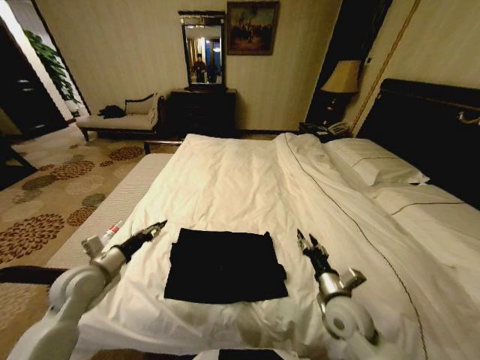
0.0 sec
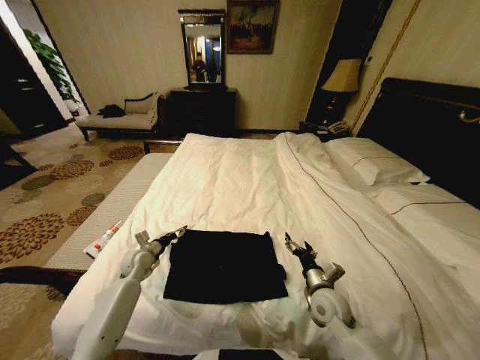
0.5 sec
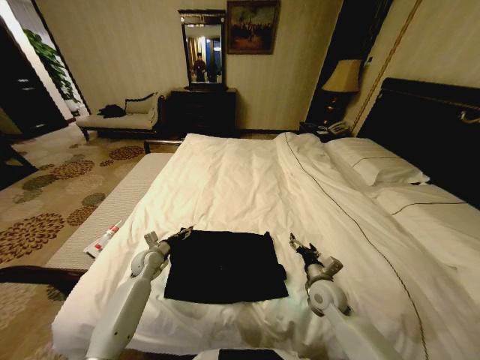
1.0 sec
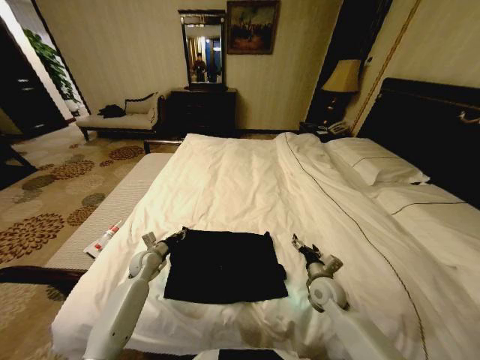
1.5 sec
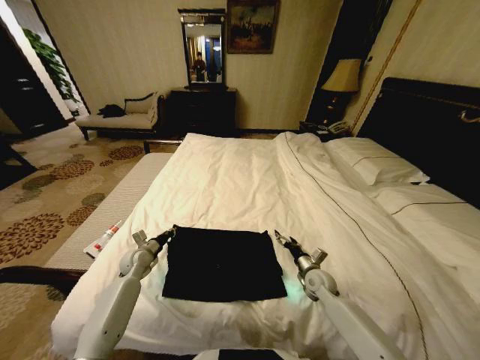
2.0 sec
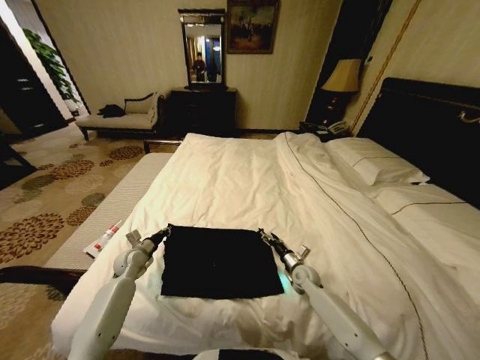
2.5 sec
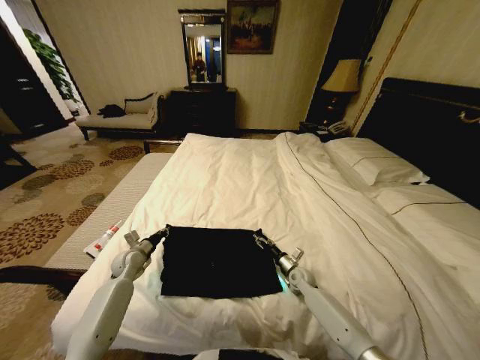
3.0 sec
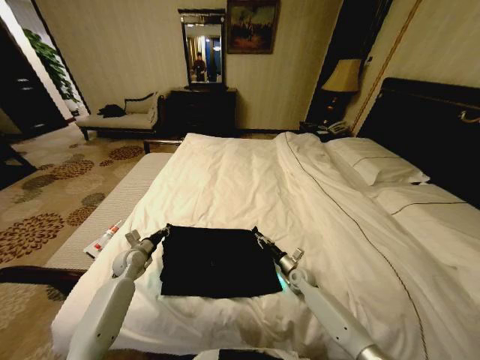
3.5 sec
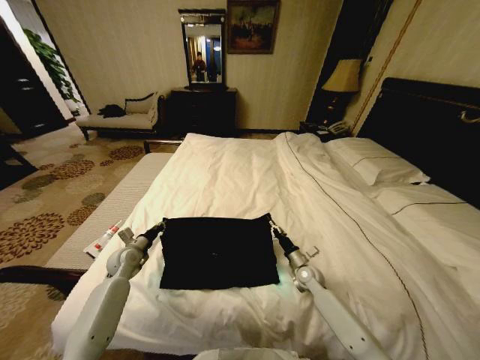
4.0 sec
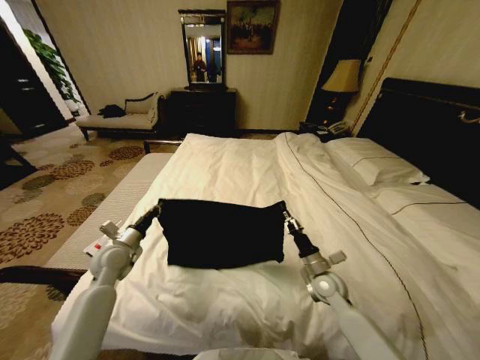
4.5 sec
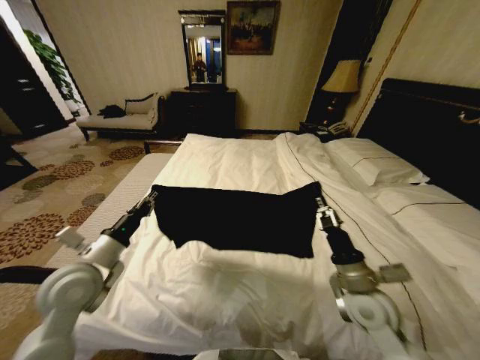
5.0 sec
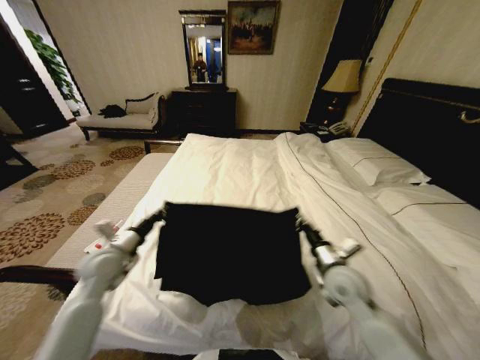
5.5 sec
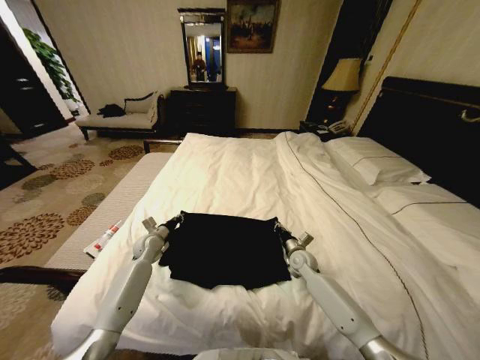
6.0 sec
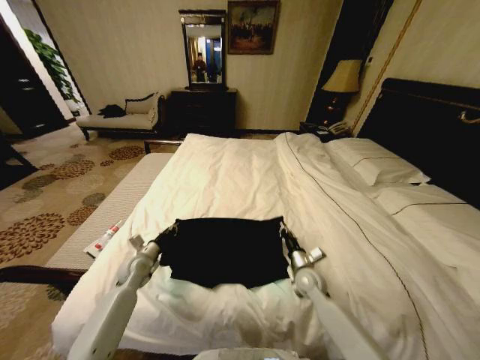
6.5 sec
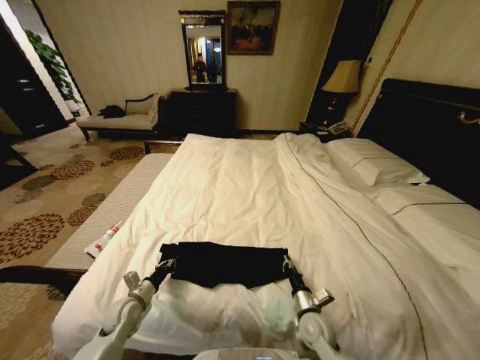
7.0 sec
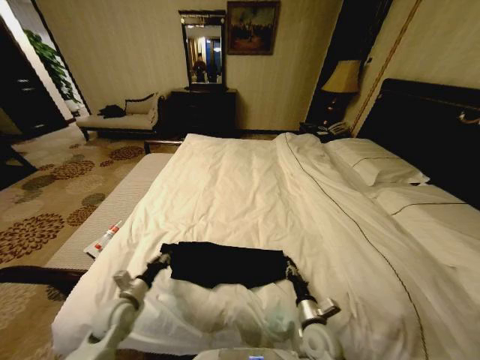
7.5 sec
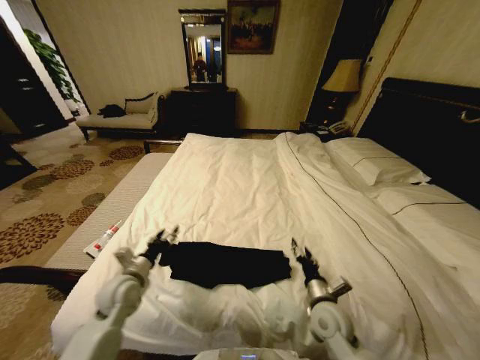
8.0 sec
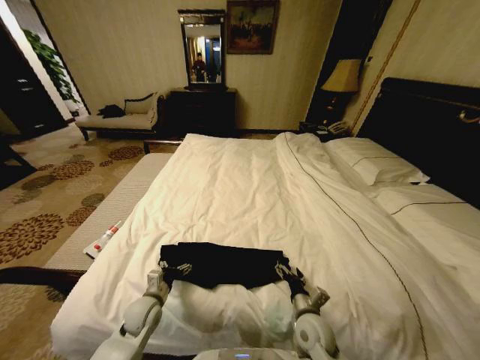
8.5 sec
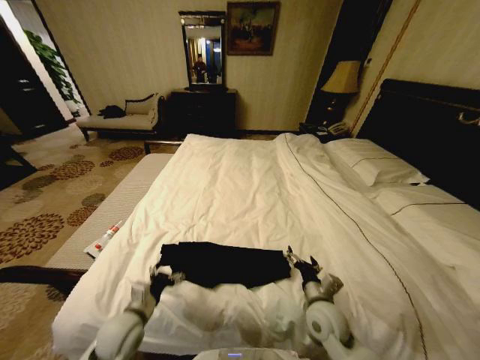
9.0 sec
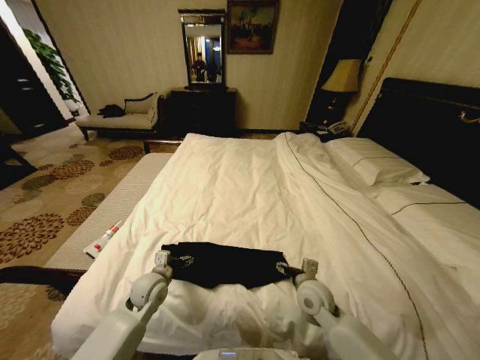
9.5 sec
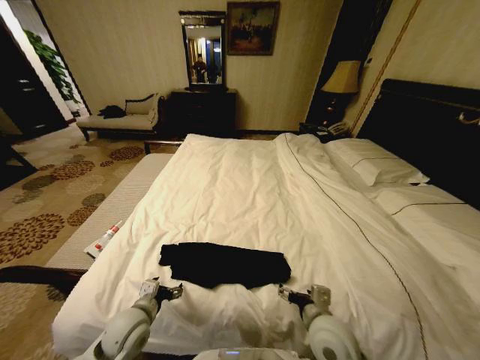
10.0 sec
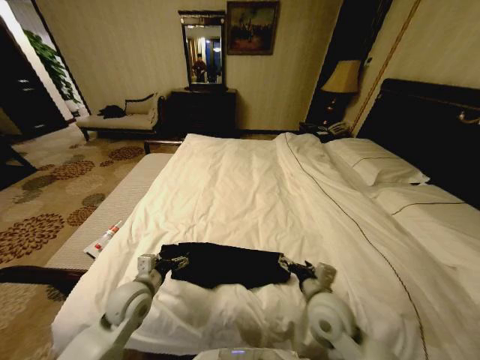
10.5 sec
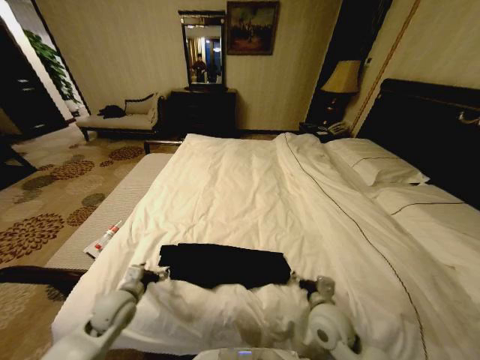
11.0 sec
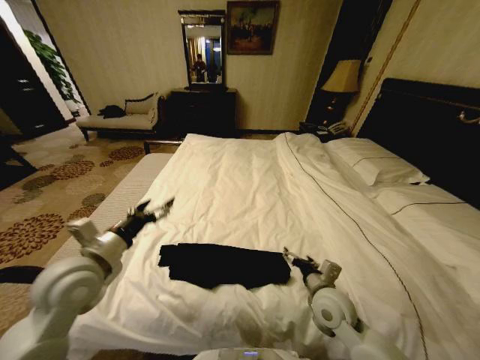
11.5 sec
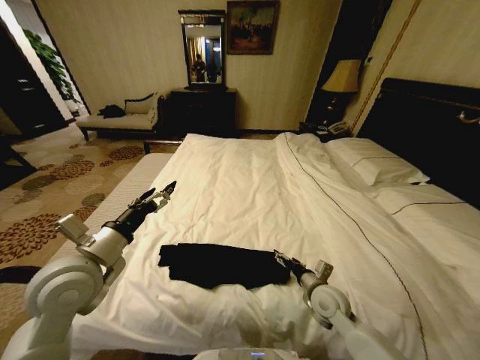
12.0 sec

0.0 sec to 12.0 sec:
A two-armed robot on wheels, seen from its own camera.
Task of the whole recording: Fold the clothes on the bed.
0.0 sec to 2.0 sec: The left gripper travels downward and forward by approximately 20 cm, and closes its fingers. The right gripper shifts roughly 15 cm forward and downward, and opens its fingers.
2.0 sec to 4.0 sec: The right gripper closes.
4.0 sec to 6.0 sec: The right gripper reaches about 20 cm upward, then returns. Meanwhile the left gripper shifts approximately 5 cm to the right, and travels backward and back again, some 15 cm each way.
6.0 sec to 8.0 sec: The two grippers go roughly 20 cm backward. The left gripper opens its fingers. Meanwhile the right gripper opens up.
8.0 sec to 10.0 sec: The right gripper travels upward and to the left by some 10 cm, and opens up. The left gripper moves forward and backward over about 10 cm, changing direction 2 times.
10.0 sec to 12.0 sec: The left gripper moves upward, some 20 cm, while the right gripper is displaced forward, to the right and downward by roughly 10 cm.

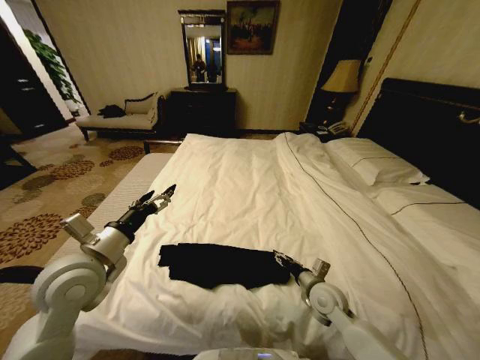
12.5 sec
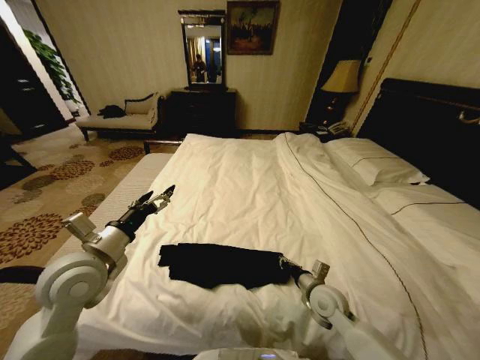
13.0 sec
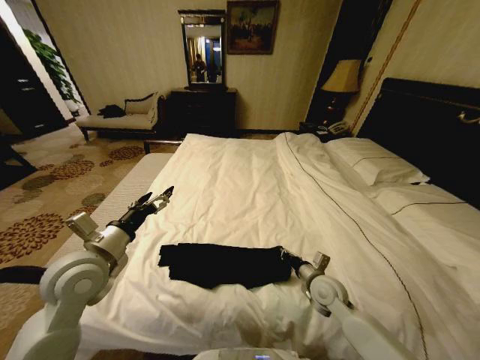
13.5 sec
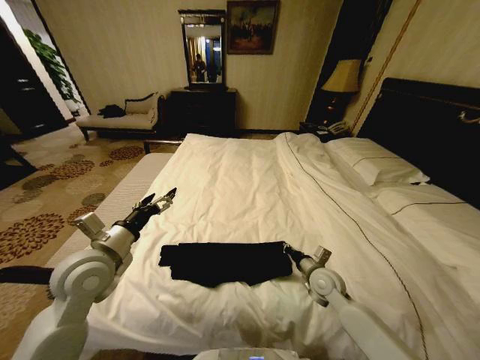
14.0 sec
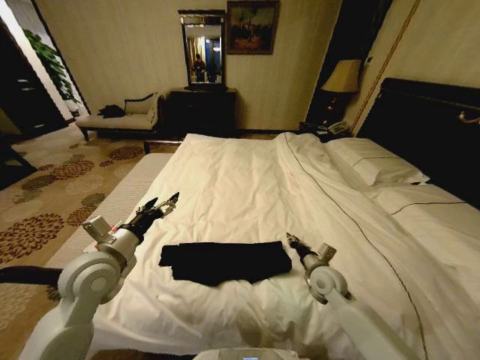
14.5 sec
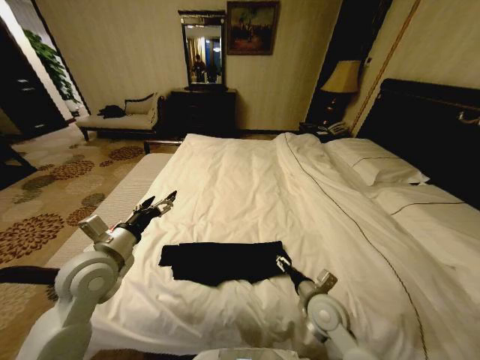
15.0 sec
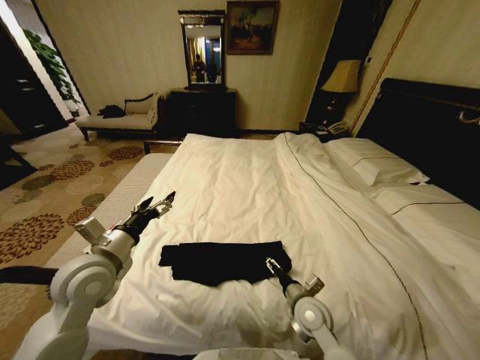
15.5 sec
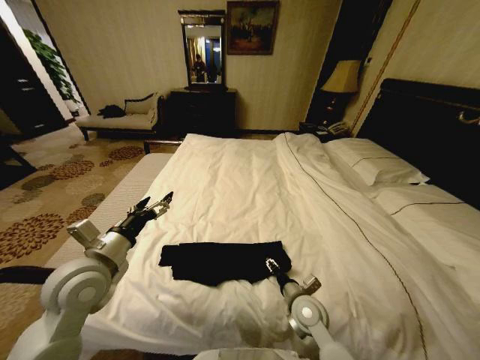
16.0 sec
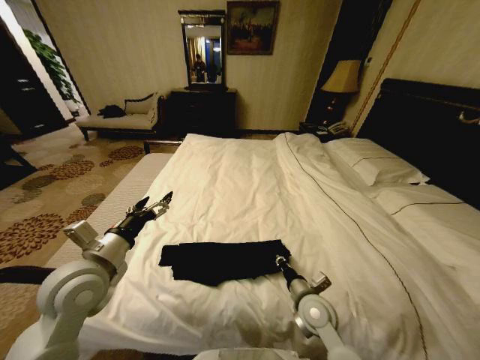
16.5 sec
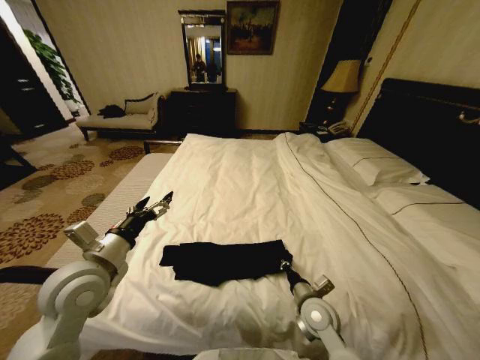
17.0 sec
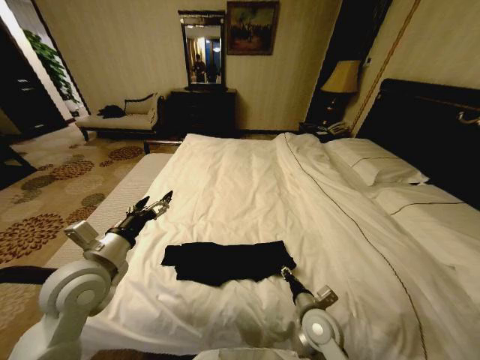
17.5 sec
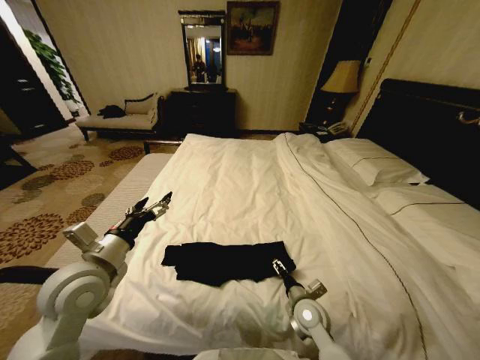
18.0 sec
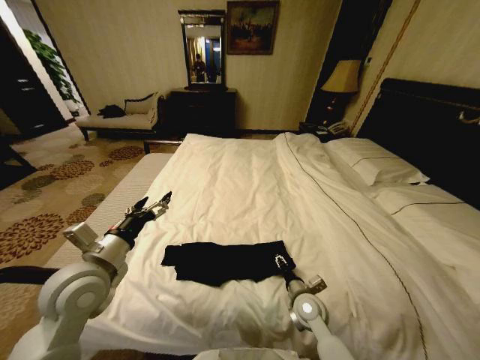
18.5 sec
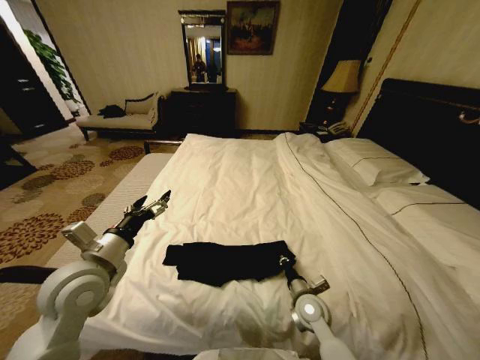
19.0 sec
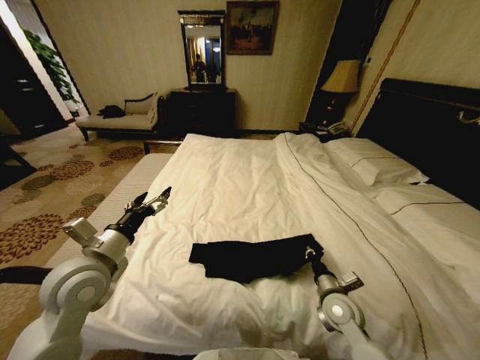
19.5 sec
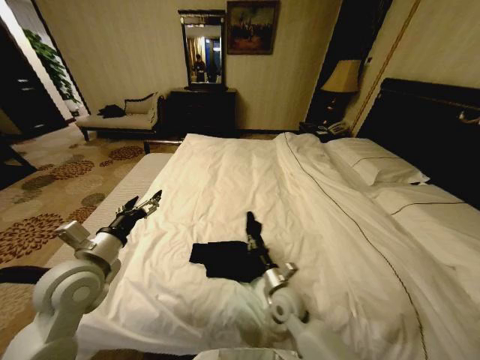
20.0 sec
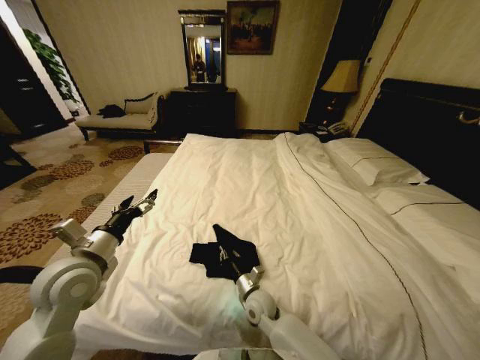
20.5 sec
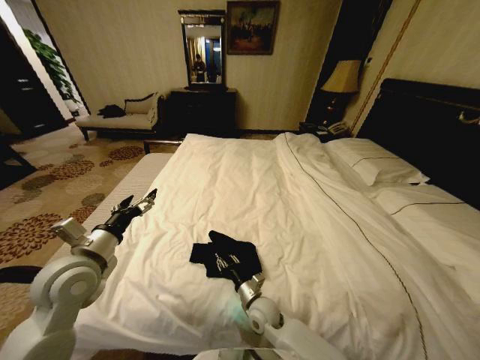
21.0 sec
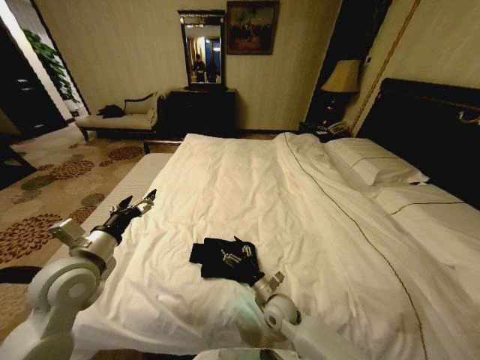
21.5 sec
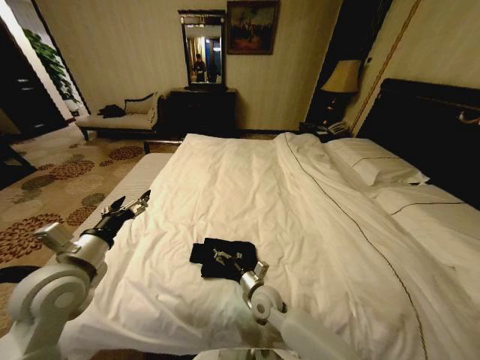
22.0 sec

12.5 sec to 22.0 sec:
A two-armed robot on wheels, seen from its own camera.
Task of the whole recording: Fold the clothes on the bed.
12.5 sec to 14.5 sec: The right gripper closes.
14.5 sec to 16.5 sec: The right gripper is displaced backward and to the left by about 10 cm, and opens, then closes again.
16.5 sec to 18.0 sec: The right gripper opens its fingers.
18.0 sec to 20.0 sec: The right gripper is displaced to the left by about 5 cm, and closes up.
20.0 sec to 22.0 sec: The right gripper moves left and right over some 5 cm, changing direction 2 times, and opens.

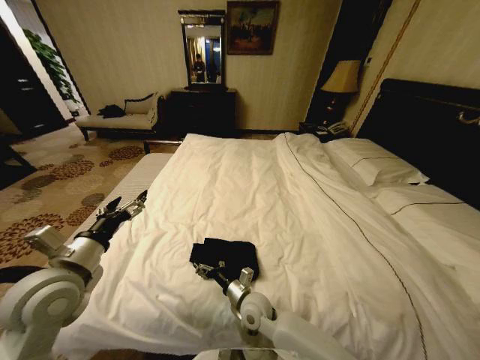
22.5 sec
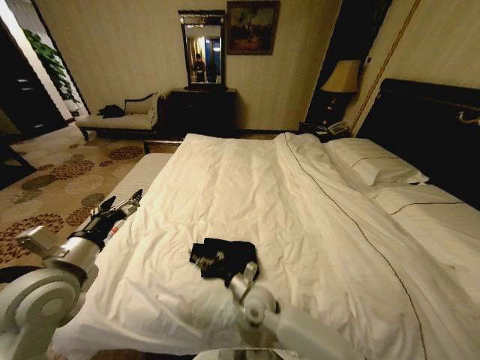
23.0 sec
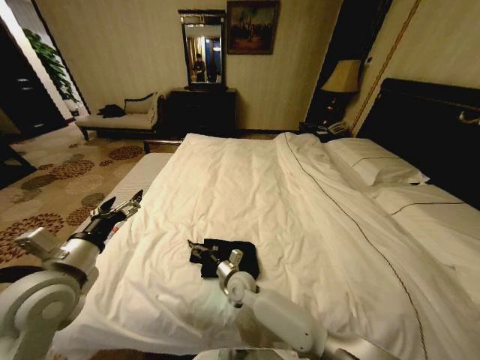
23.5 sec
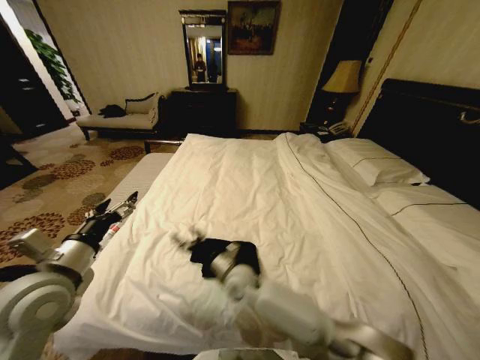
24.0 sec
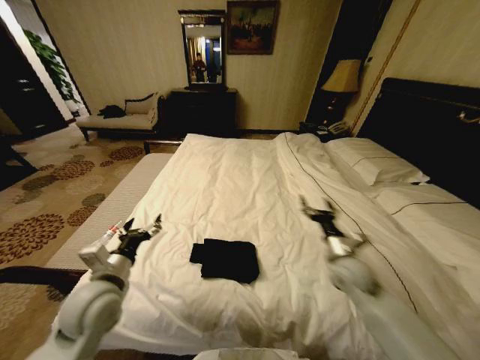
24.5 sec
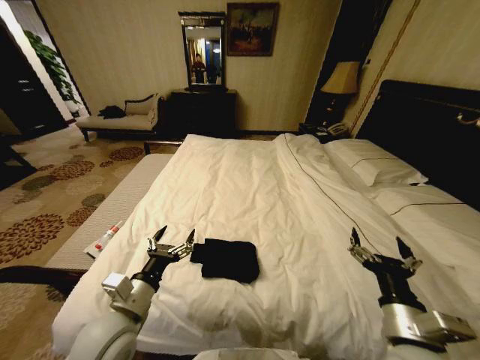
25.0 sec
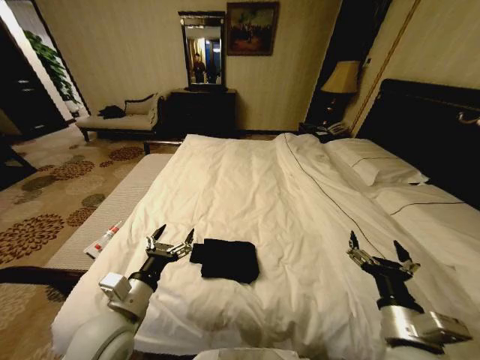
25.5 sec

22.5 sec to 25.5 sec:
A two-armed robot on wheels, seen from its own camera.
Task of the whole recording: Fold the clothes on the bed.
22.5 sec to 24.0 sec: The right gripper travels forward by approximately 5 cm.
24.0 sec to 25.5 sec: The left gripper shifts some 15 cm to the right and downward. The right gripper shifts roughly 35 cm to the right, backward and upward.

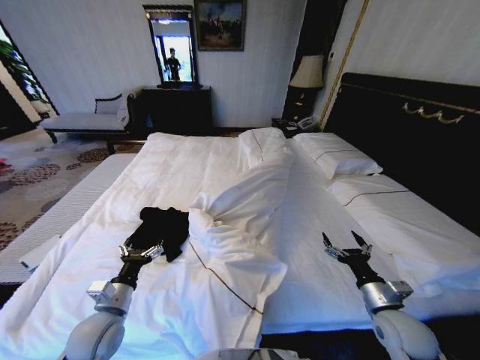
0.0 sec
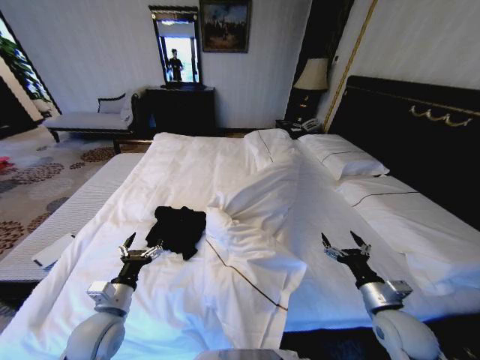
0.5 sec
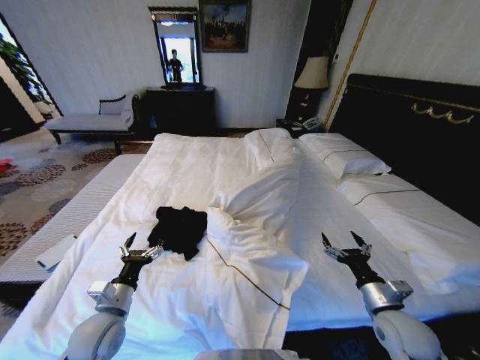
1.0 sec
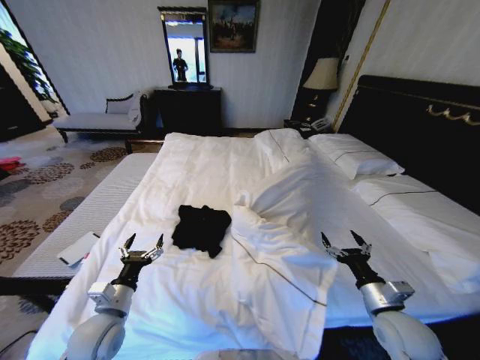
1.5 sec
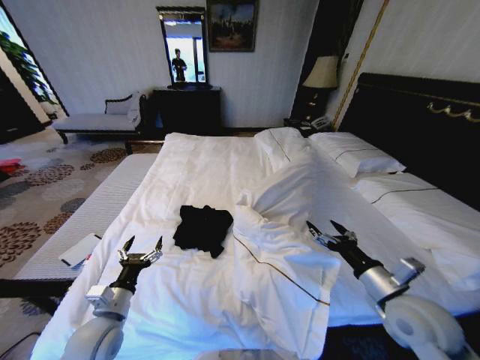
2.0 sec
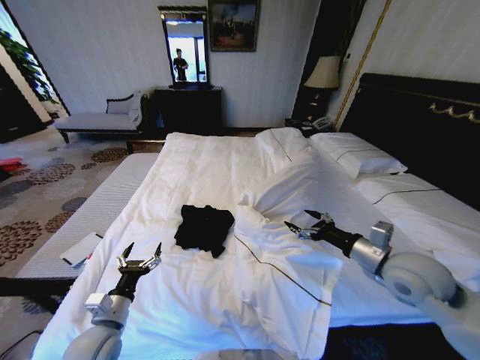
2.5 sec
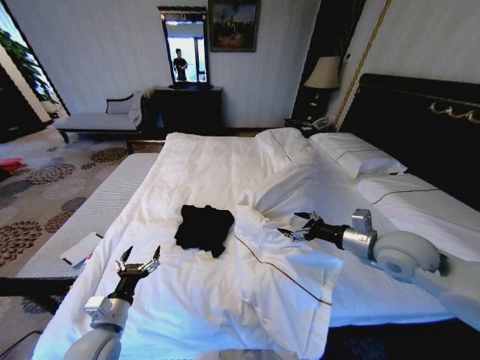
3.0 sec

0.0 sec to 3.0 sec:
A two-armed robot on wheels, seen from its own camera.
Task of the whole recording: Fold the clothes on the bed.
1.5 sec to 3.0 sec: The right gripper goes some 20 cm upward and forward.
